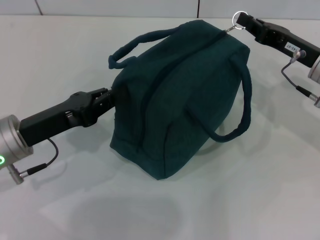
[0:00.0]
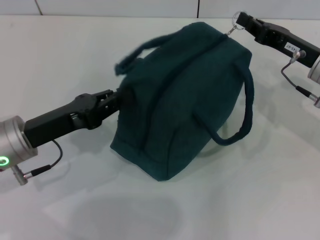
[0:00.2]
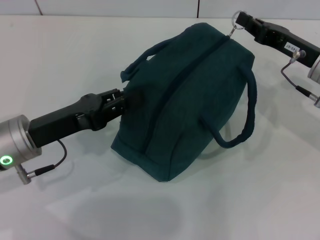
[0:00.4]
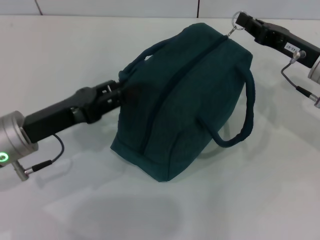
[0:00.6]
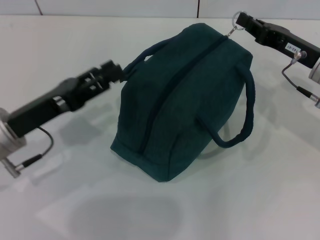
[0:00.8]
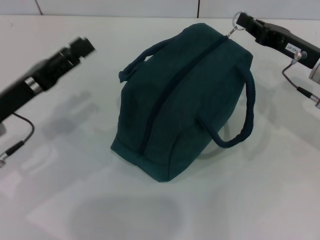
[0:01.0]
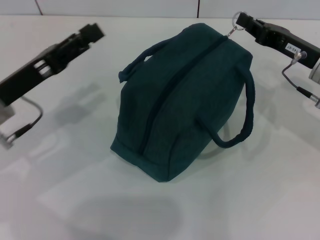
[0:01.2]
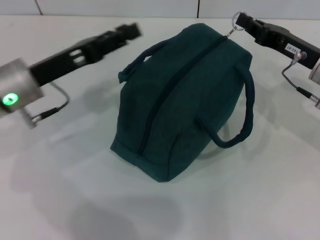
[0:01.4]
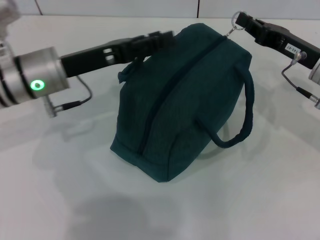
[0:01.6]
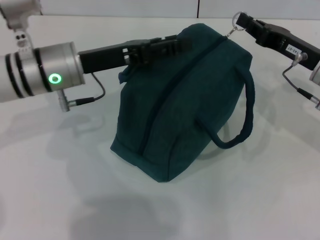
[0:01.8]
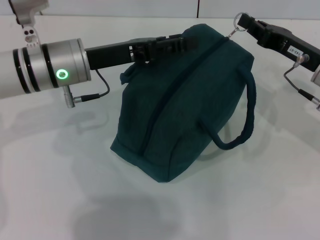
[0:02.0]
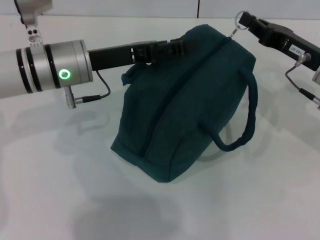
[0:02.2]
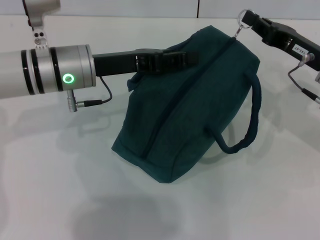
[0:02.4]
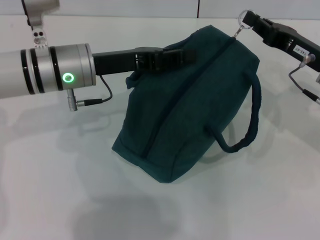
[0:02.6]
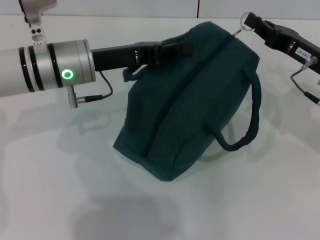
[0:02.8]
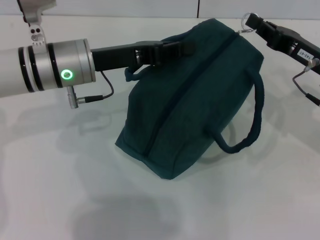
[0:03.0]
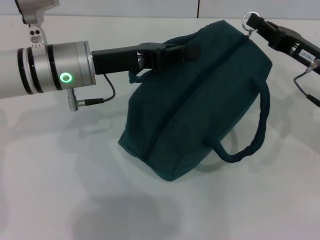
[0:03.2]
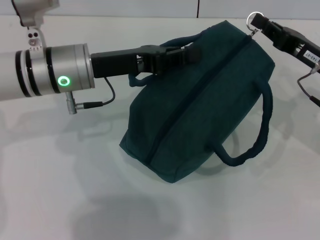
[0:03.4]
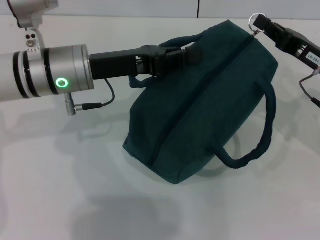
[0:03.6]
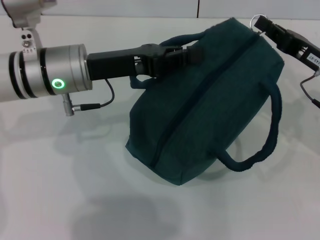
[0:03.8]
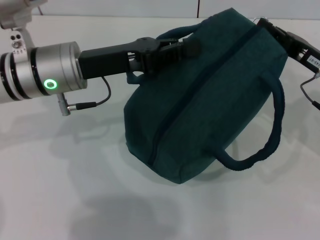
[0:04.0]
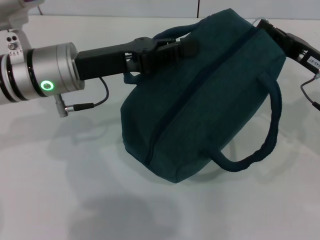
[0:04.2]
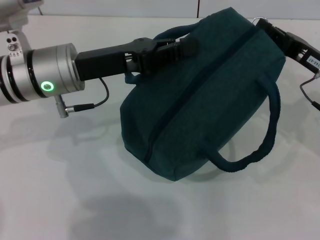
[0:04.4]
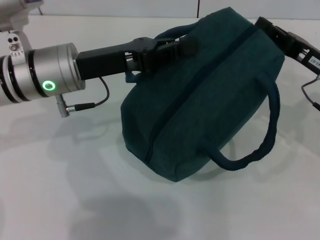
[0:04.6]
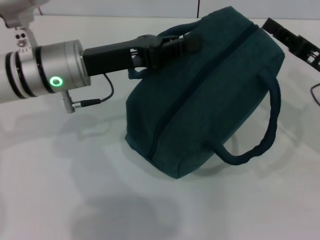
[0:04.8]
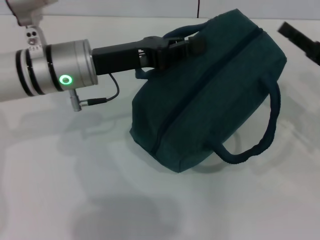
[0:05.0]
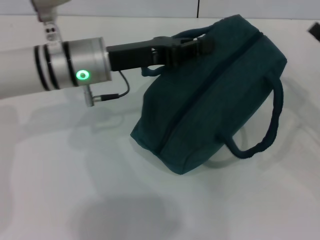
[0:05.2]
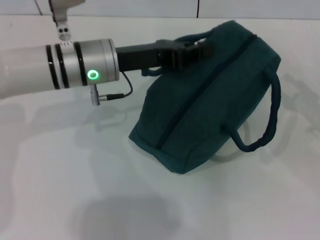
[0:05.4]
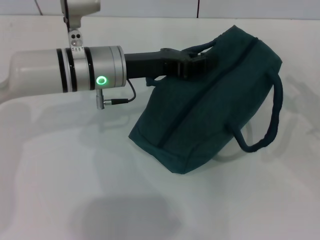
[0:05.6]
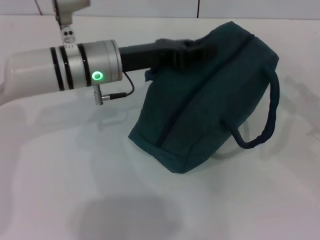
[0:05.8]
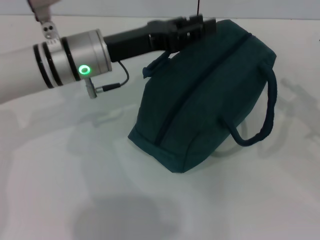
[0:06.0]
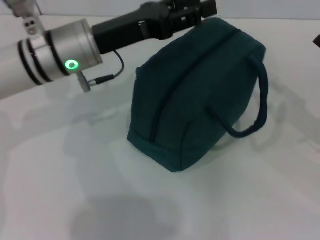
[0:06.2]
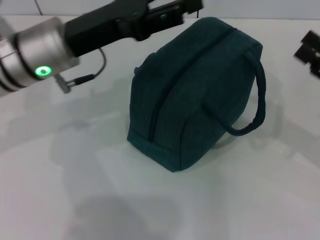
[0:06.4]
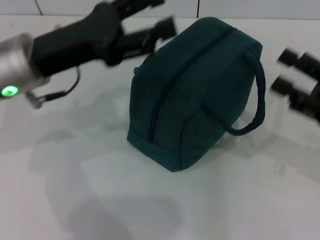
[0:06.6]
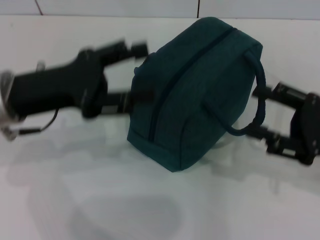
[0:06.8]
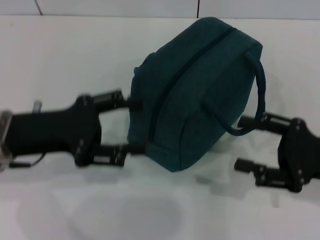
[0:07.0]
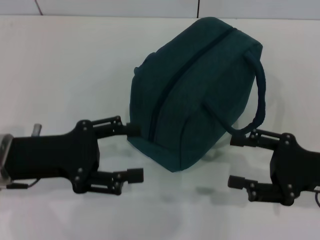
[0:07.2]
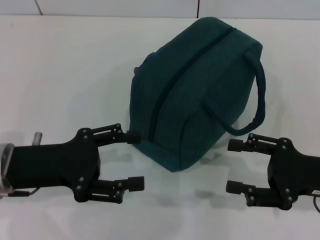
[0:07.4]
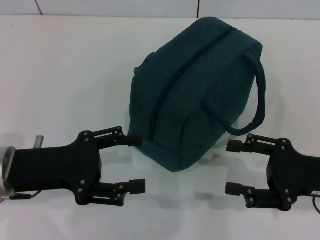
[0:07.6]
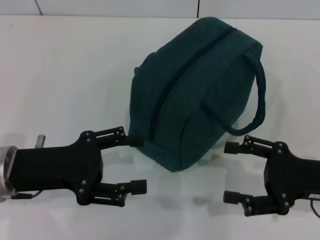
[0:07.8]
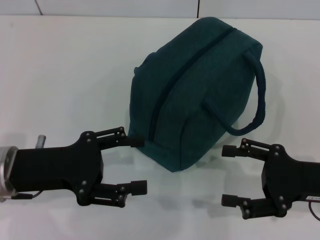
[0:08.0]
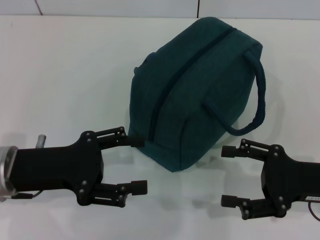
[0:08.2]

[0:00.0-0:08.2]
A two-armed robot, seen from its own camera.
Step, 0:00.0 to 0:04.8: Zip up the lunch bag with your right hand.
Step, 0:05.0 to 0:06.0: Hold the lunch bag with your left hand.
0:00.0 to 0:01.6: The left gripper heads forward, covering about 10 cm, and opens its fingers.
0:01.6 to 0:03.2: The left gripper closes its fingers.
0:03.2 to 0:05.0: The right gripper shifts by approximately 5 cm.
0:05.0 to 0:06.6: The left gripper ends up about 5 cm from where it was, and opens its fingers; the right gripper heads backward, covering roughly 5 cm, and opens.
0:06.6 to 0:08.2: The right gripper moves approximately 5 cm. The left gripper heads backward and downward, covering approximately 10 cm.

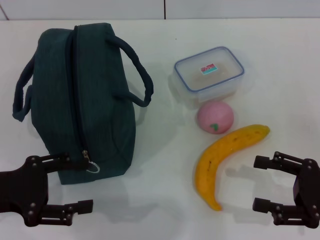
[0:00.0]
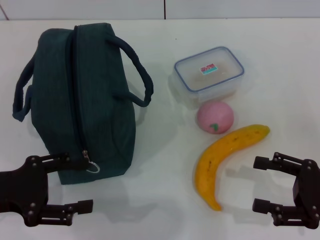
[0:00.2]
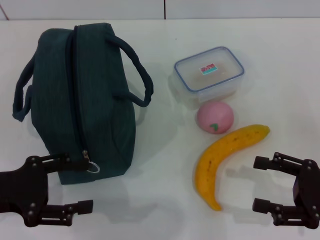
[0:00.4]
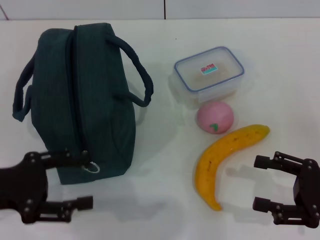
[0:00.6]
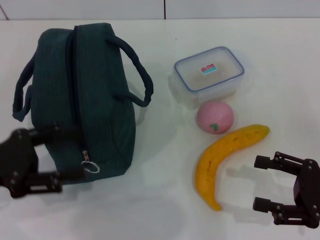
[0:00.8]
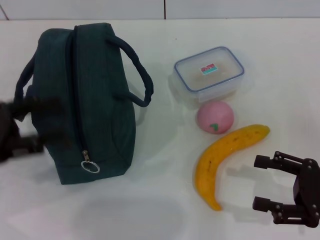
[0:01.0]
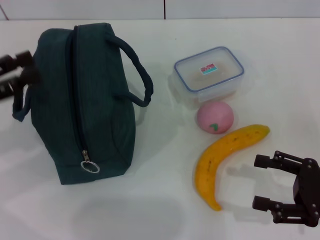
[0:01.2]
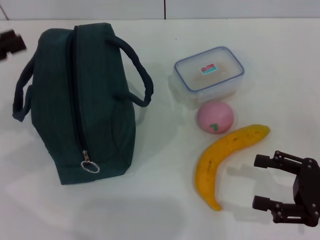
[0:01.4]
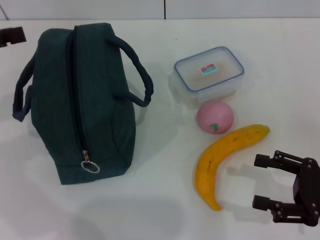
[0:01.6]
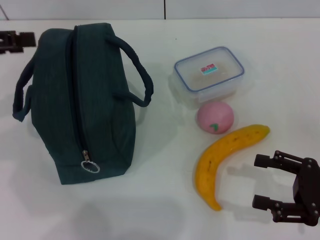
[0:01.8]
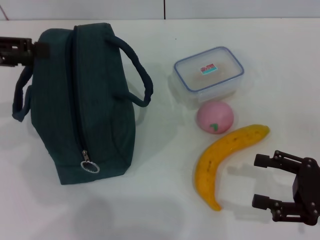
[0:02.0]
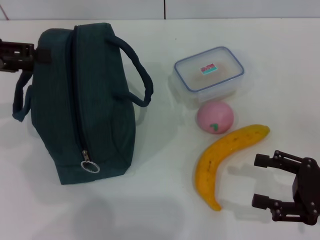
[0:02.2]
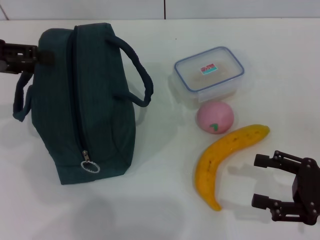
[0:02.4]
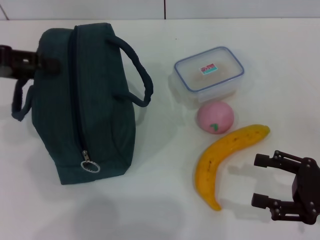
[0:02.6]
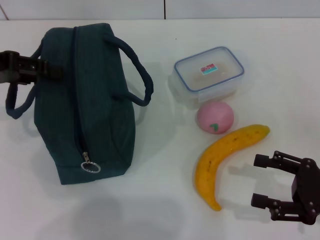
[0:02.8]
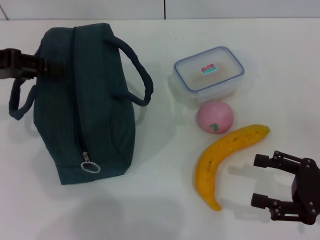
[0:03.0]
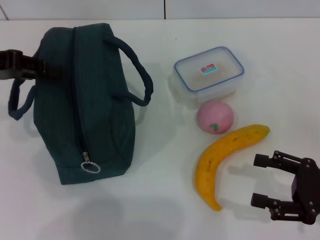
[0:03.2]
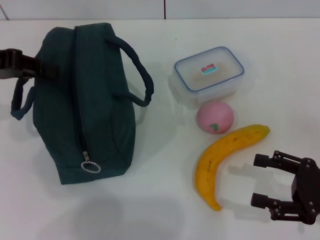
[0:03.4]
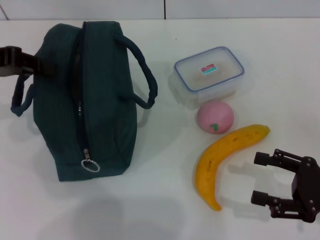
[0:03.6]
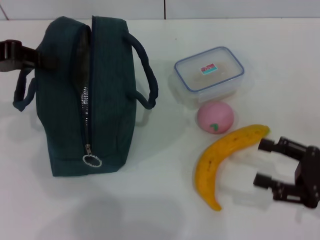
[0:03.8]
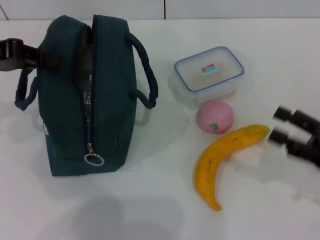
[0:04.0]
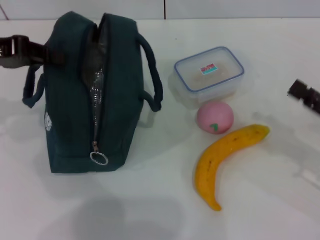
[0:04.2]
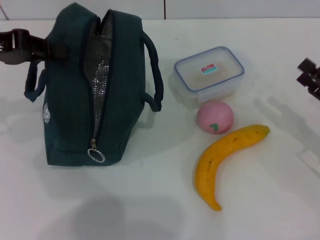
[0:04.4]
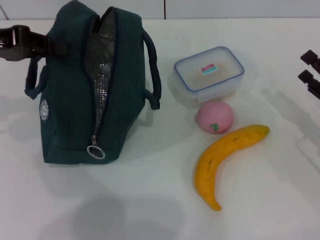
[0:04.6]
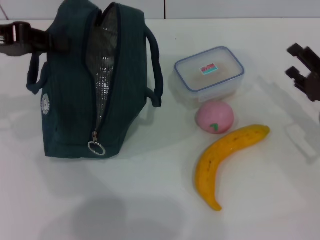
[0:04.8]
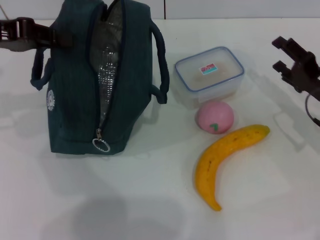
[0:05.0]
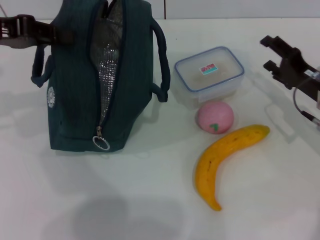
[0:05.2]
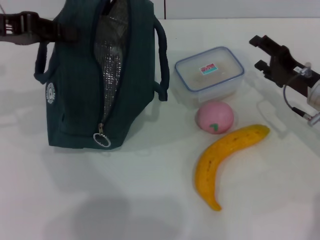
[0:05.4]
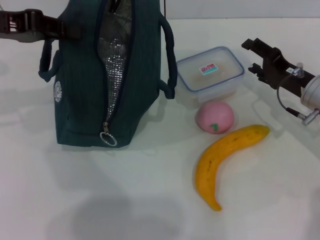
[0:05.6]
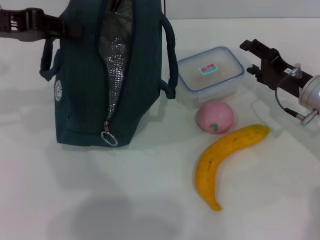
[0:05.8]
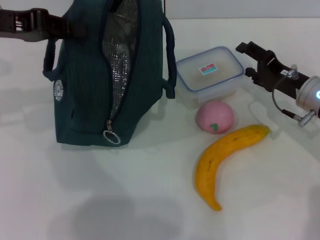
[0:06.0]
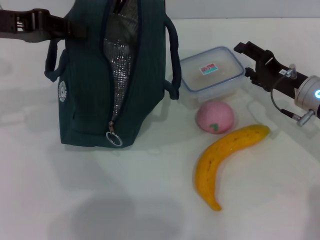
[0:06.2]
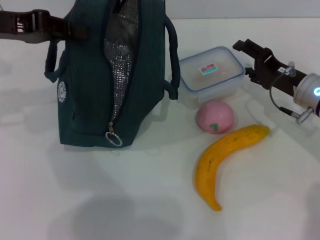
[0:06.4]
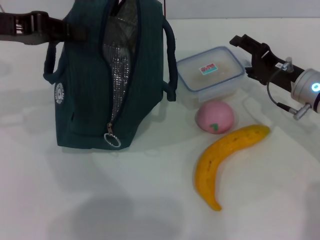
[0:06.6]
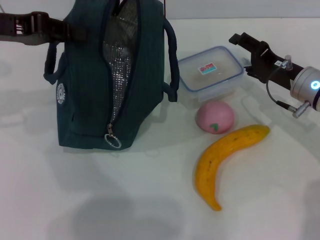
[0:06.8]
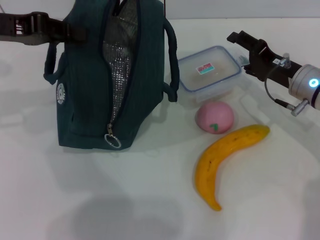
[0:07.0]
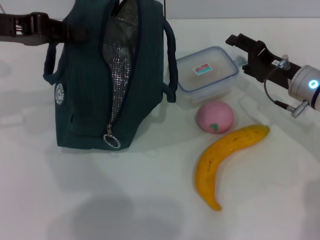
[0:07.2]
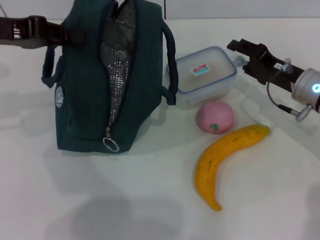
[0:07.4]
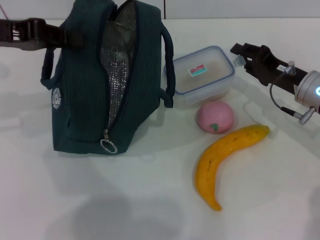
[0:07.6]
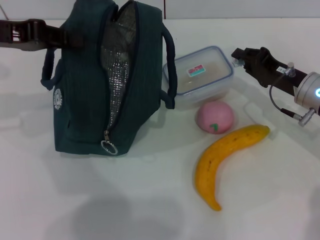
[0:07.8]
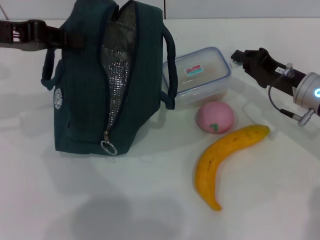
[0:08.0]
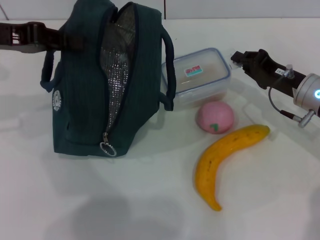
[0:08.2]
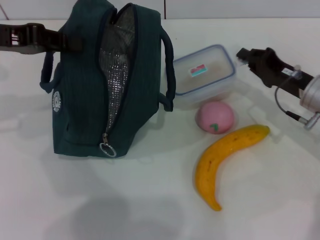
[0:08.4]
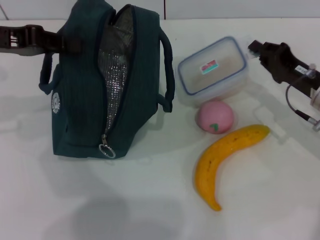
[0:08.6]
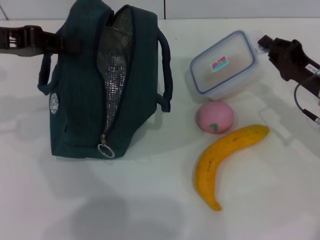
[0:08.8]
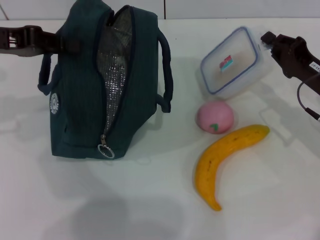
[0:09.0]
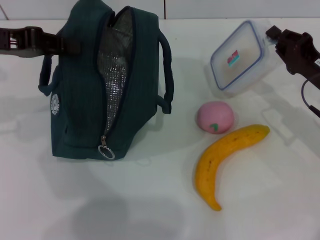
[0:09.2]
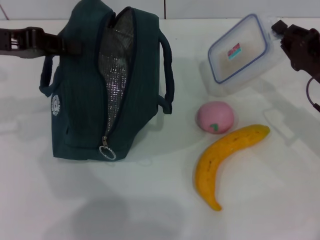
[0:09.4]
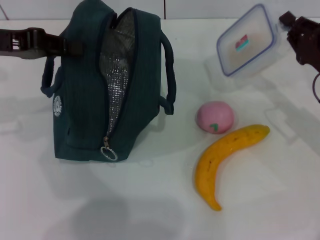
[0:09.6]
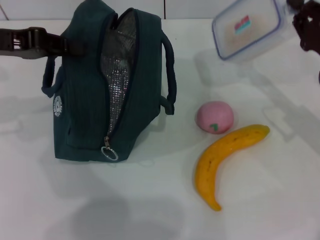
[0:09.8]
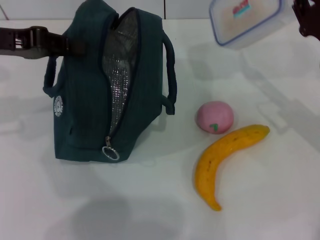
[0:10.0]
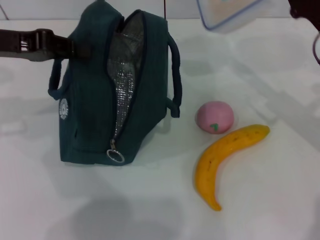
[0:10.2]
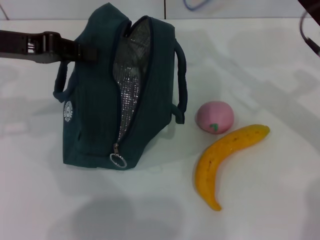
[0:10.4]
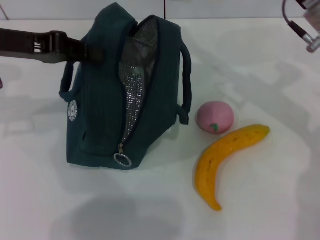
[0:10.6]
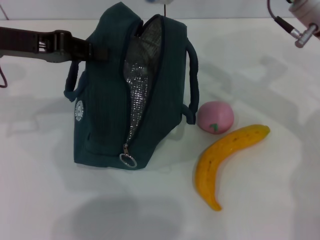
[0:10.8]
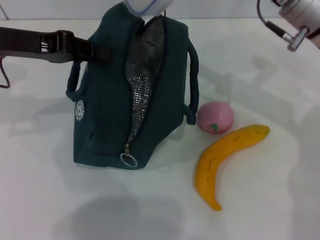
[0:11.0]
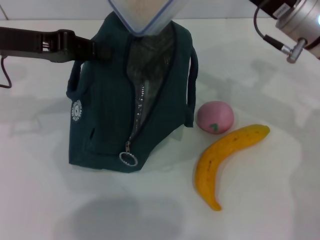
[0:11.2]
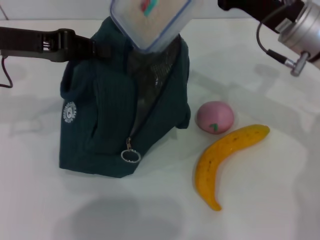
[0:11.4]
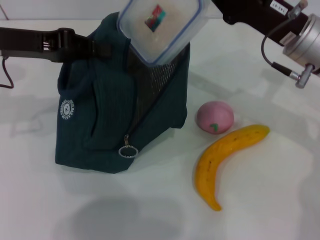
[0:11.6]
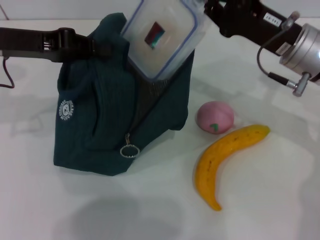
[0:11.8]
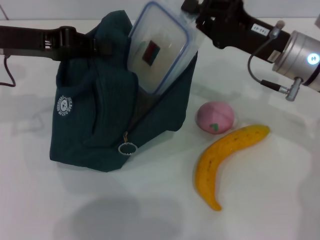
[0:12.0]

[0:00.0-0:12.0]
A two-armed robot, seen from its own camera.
Step, 0:00.0 to 0:05.0: Hold the lunch bag with your left hand.
Step, 0:05.2 to 0:07.8: Pick up the lunch box with your right hand.
0:00.0 to 0:01.6: The left gripper shifts roughly 15 cm upward, forward and to the left.
0:01.6 to 0:03.0: The left gripper shifts by some 5 cm.
0:03.0 to 0:04.4: The right gripper heads forward, covering about 5 cm. The left gripper closes.
0:04.4 to 0:06.0: The right gripper travels forward and to the left by approximately 15 cm.
0:06.0 to 0:07.6: The grippers make only small movements.
0:07.6 to 0:09.0: The right gripper closes up.
0:09.0 to 0:10.4: The right gripper shifts approximately 10 cm upward.
0:10.4 to 0:12.0: The right gripper changes place by roughly 5 cm.

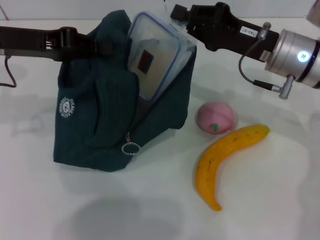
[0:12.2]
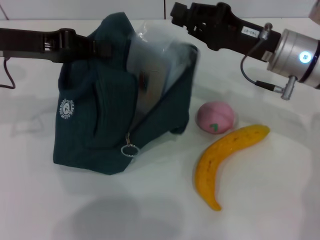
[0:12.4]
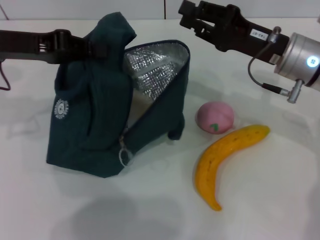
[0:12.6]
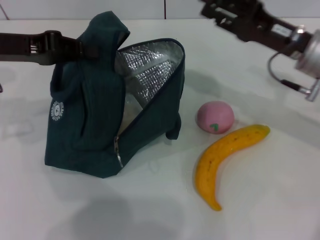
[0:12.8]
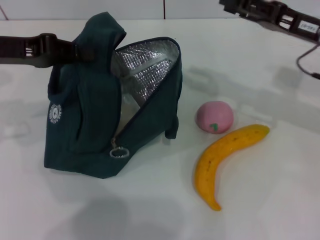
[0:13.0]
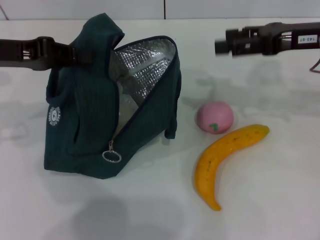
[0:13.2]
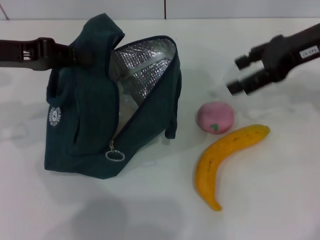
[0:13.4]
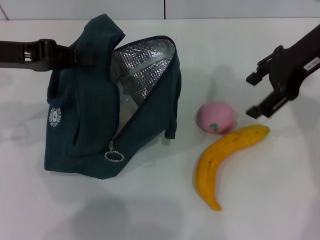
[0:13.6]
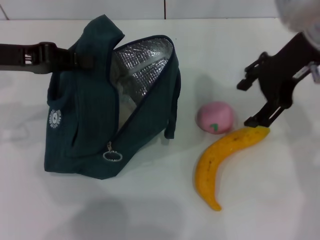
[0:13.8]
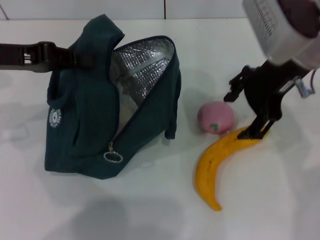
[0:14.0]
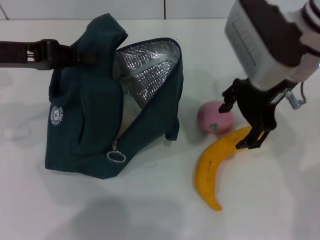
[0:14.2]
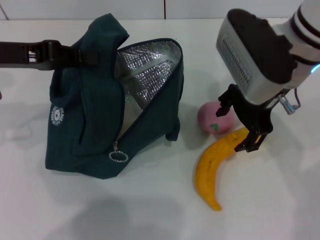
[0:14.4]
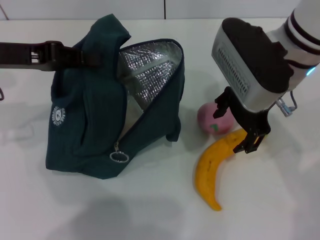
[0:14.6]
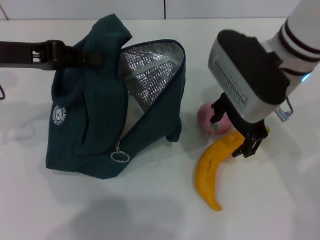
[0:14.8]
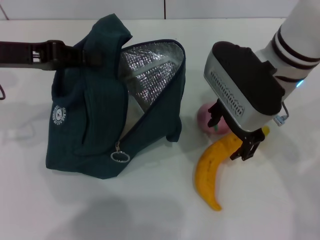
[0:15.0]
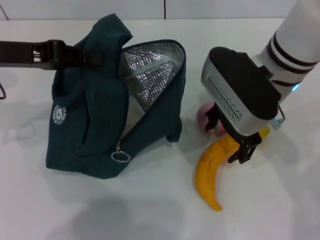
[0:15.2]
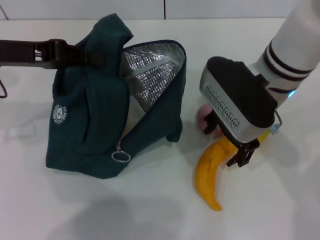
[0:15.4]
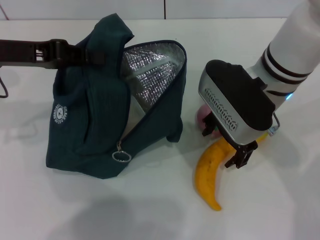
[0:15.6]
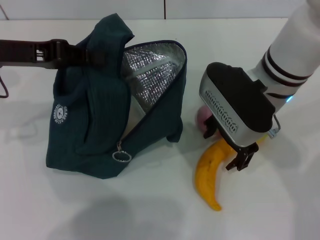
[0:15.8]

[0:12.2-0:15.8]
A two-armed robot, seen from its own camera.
0:12.2 to 0:14.0: The right gripper is displaced upward by about 10 cm, and opens.
0:14.0 to 0:15.8: The right gripper is displaced downward by approximately 5 cm.
